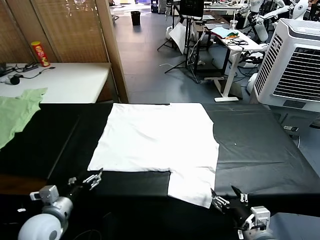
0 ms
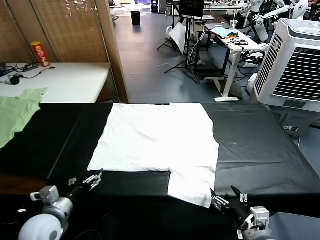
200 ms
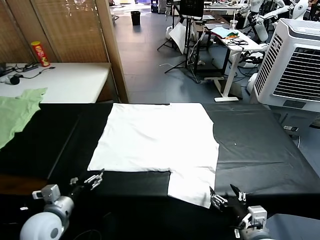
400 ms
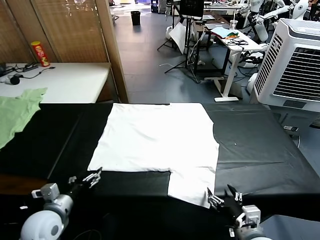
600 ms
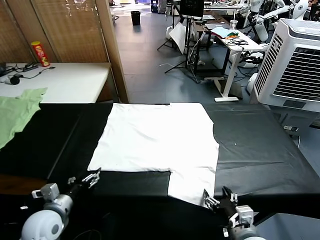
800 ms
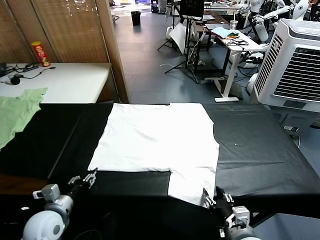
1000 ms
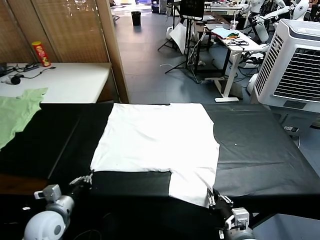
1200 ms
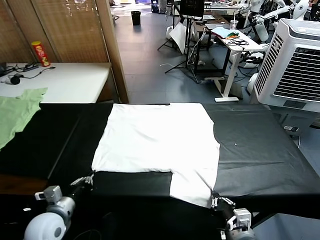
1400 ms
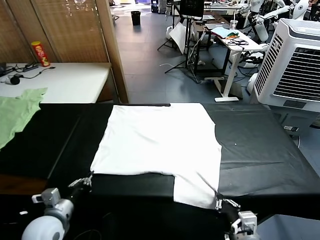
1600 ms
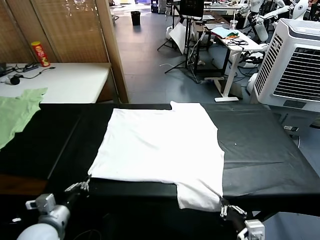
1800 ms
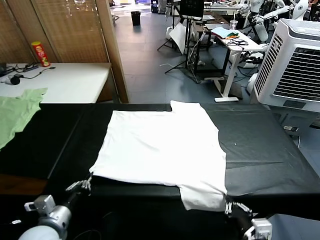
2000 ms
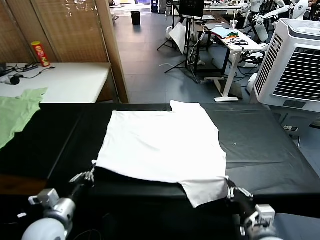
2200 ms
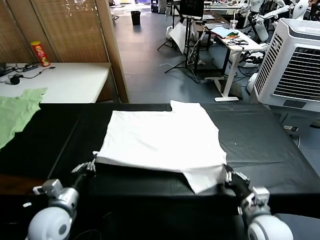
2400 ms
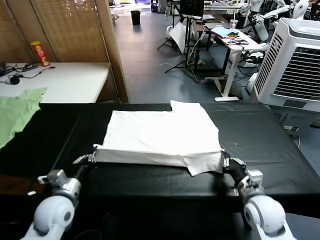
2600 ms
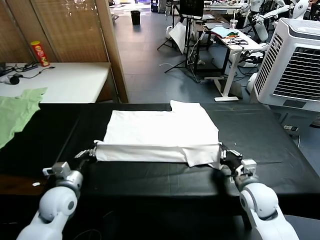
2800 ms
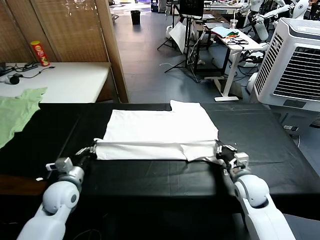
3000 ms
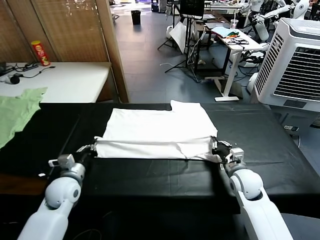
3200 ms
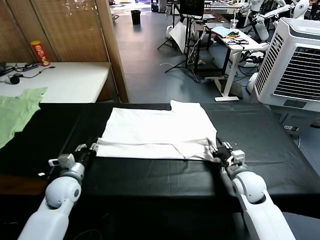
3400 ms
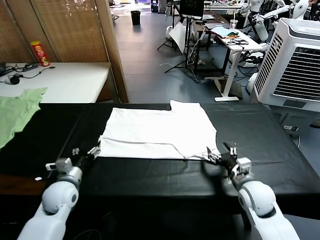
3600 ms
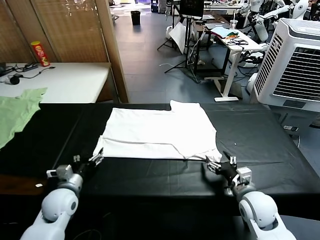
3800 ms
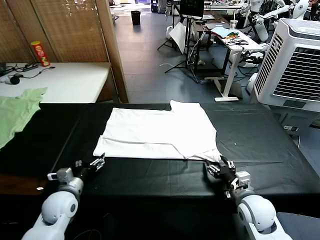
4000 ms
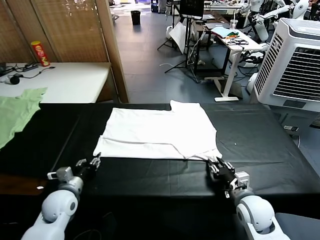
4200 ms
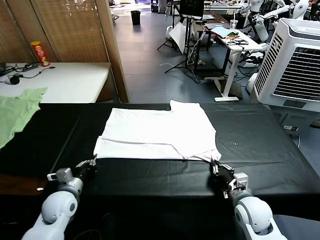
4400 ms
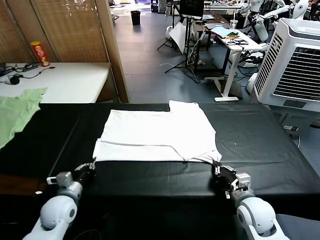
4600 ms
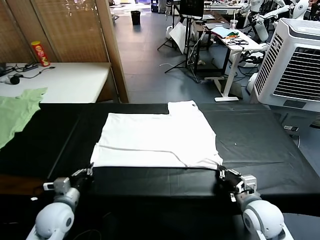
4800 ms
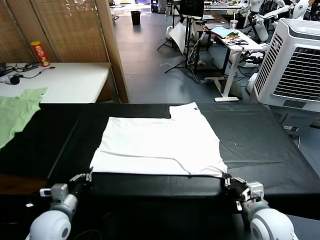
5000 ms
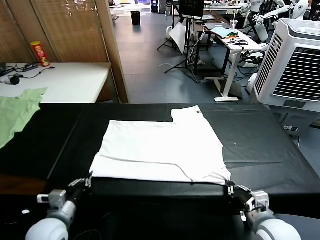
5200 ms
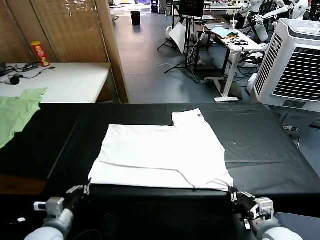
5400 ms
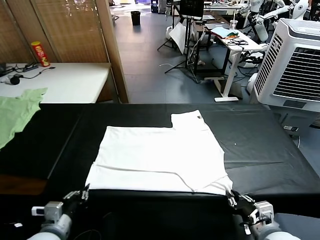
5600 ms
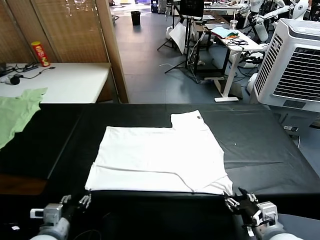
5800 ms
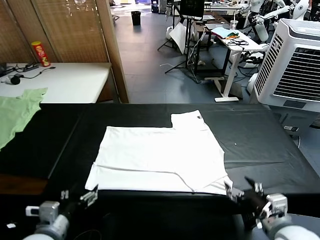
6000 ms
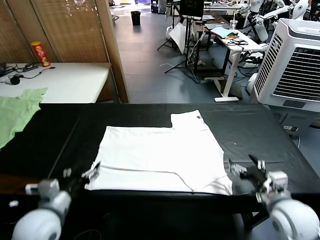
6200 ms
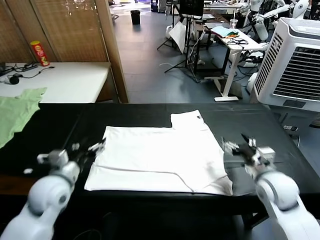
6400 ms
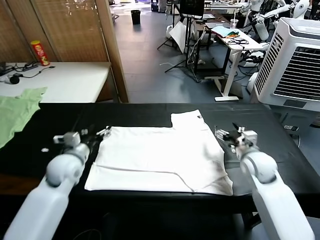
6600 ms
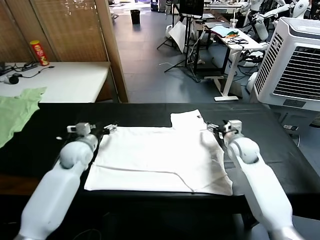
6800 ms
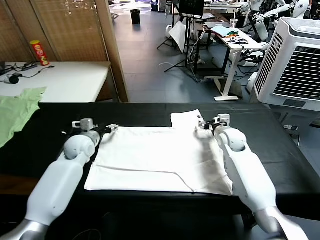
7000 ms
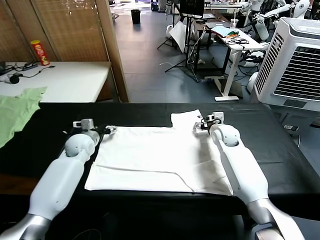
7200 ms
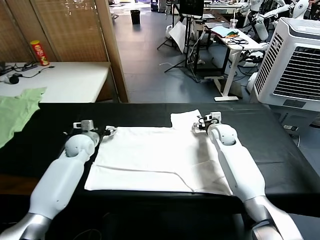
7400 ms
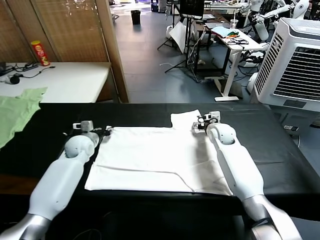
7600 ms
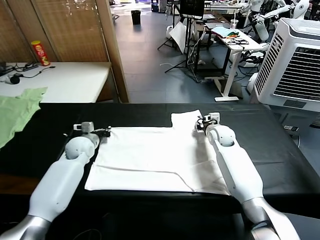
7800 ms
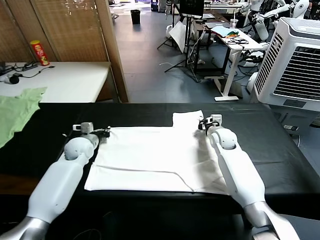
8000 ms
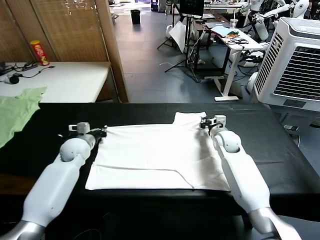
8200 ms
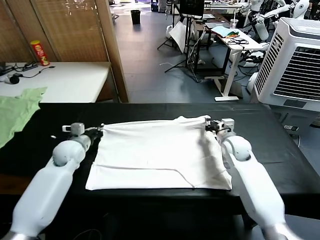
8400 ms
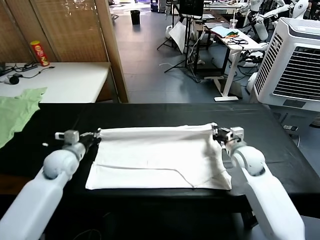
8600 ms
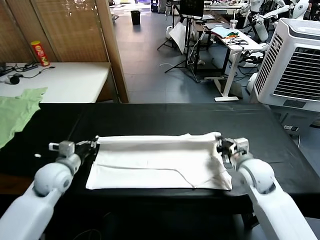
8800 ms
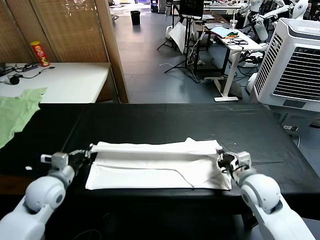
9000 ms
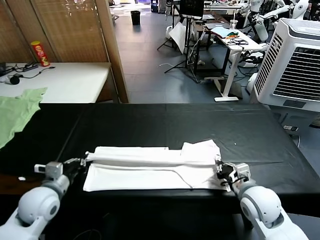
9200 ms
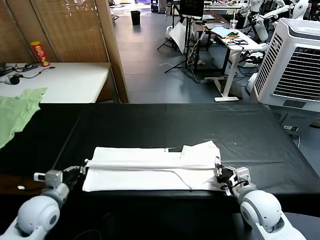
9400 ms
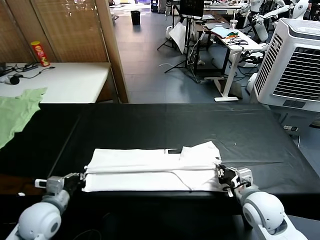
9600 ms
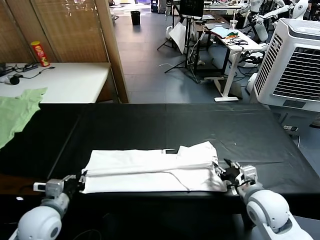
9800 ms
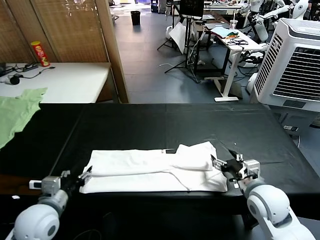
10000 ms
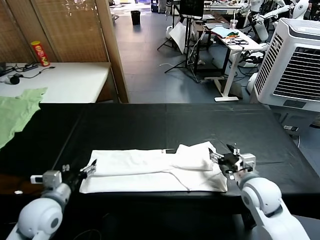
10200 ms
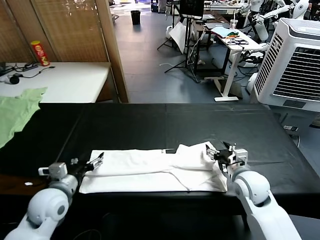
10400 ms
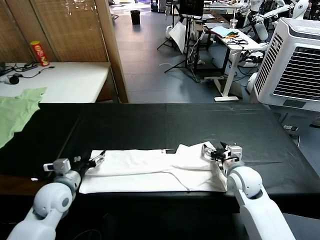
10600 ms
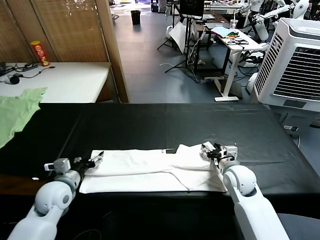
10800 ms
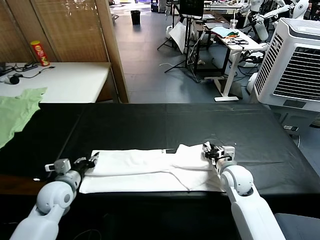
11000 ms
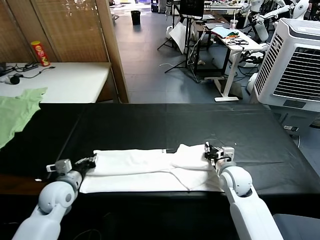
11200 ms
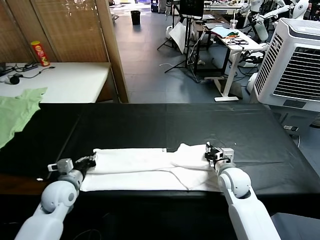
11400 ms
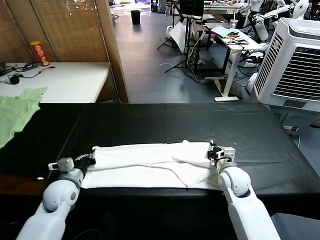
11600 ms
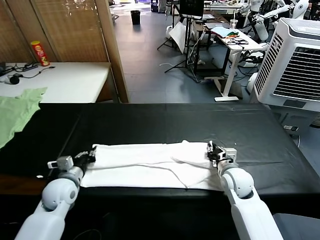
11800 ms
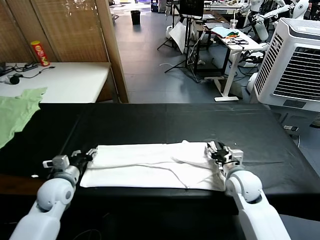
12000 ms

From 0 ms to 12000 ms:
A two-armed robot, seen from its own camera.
Task of the whole recording: fold and organize the clothes.
Step, from 0 ms to 1400 ms: use both grippers simultaneously to clamp the lower edge of the clothing fabric.
Step, from 1600 ms to 3400 ms: use both grippers to drag the lower edge of the fabric forward and fold it over the upper edge.
Step, from 3600 ms to 5800 ms: Drag the clothes downward with both gripper.
Step, from 6000 ms to 7800 ms: use both grippers simultaneously to clamp the upper edge of the clothing fabric.
Step, from 8000 ms to 9800 ms: use both grippers to drag the upper edge of the fabric backward and fold it over the lower edge.
From 1600 ms to 3000 ms: The right gripper goes some 25 cm forward. The left gripper heads forward, covering approximately 10 cm.
From 3000 ms to 4400 ms: The right gripper travels backward by some 10 cm, and opens, then closes once more. The left gripper opens and closes again.
From 4400 ms to 6000 ms: The left gripper is displaced backward and upward by some 15 cm, and opens up. Meanwhile the right gripper travels upward by roughly 10 cm, travels backward and back again, approximately 10 cm each way, and opens its fingers.
From 6000 ms to 7600 ms: The grippers both shift forward by some 30 cm. The right gripper closes up, while the left gripper closes up.
From 7600 ms to 9000 ms: Both grippers travel together backward, about 25 cm. The right gripper closes up. The left gripper closes up.
From 9000 ms to 10400 ms: The right gripper moves forward, some 5 cm, and opens its fingers. Meanwhile the left gripper opens its fingers.
From 10400 ms to 12000 ms: The right gripper closes, then reopens. Meanwhile the left gripper moves roughly 5 cm, and closes, then opens again.

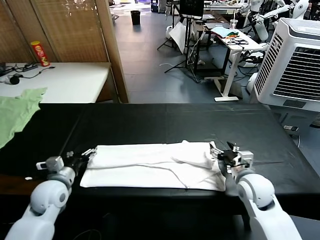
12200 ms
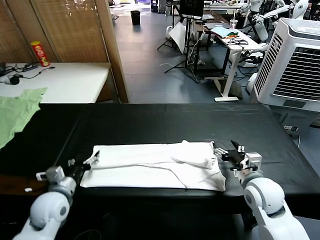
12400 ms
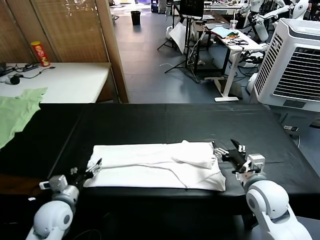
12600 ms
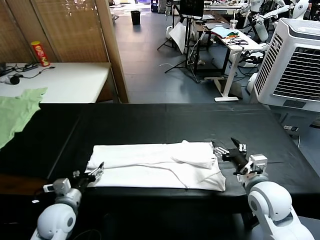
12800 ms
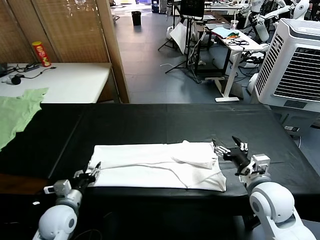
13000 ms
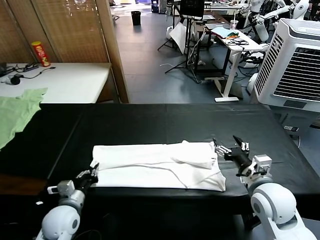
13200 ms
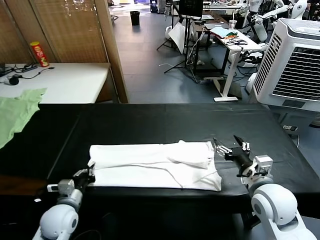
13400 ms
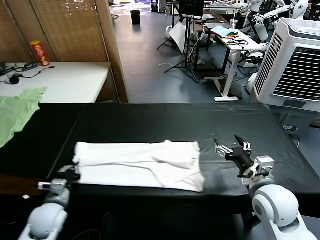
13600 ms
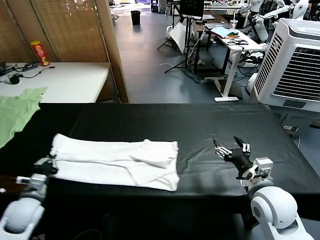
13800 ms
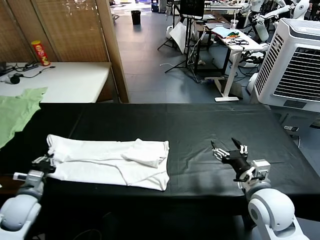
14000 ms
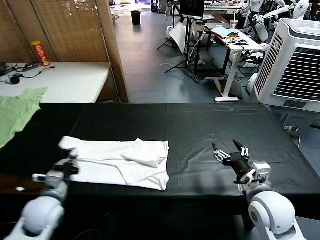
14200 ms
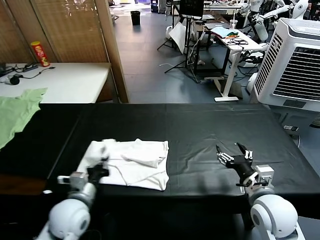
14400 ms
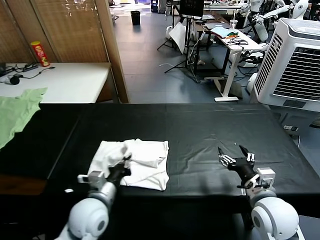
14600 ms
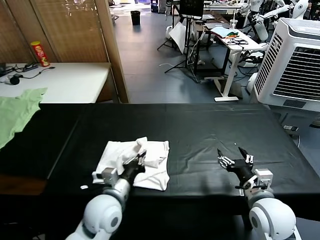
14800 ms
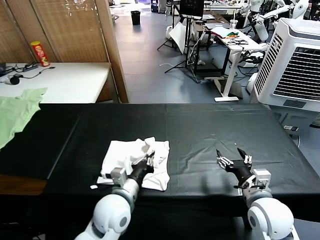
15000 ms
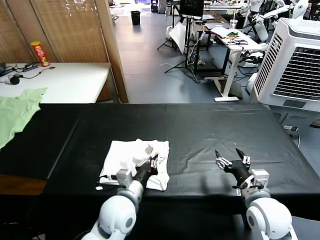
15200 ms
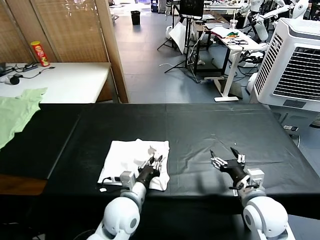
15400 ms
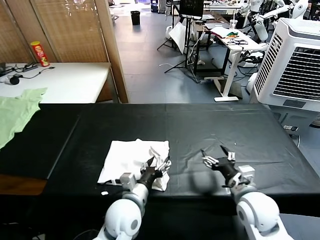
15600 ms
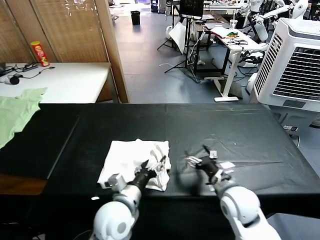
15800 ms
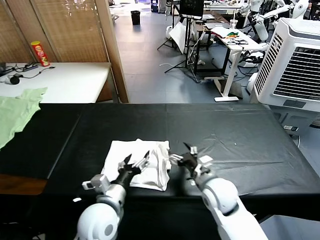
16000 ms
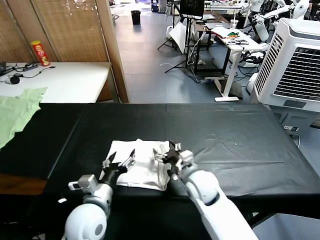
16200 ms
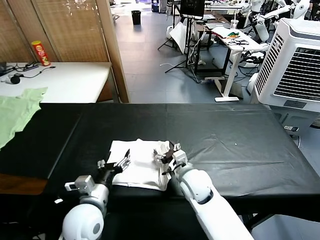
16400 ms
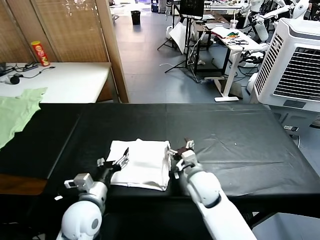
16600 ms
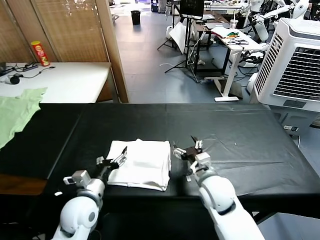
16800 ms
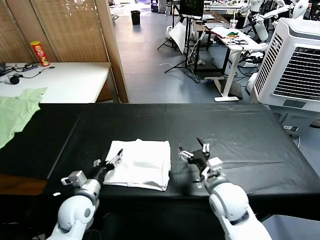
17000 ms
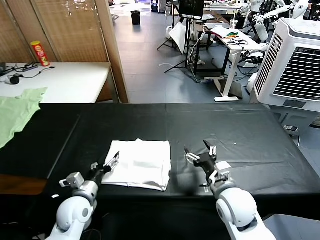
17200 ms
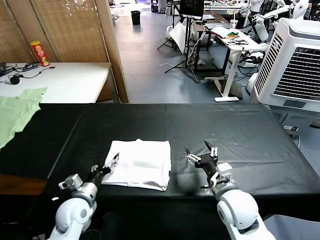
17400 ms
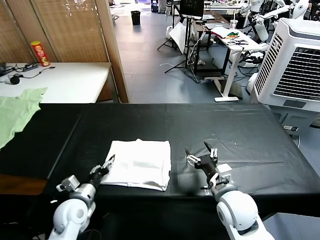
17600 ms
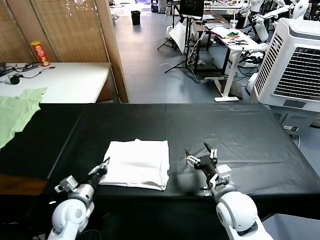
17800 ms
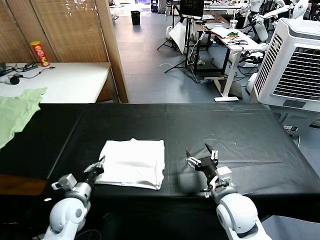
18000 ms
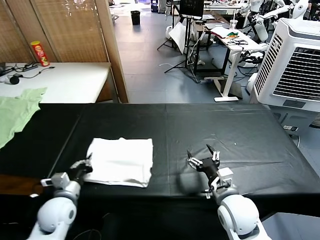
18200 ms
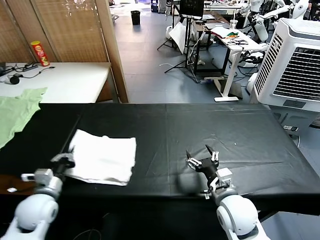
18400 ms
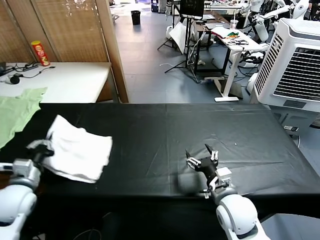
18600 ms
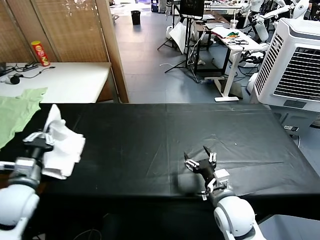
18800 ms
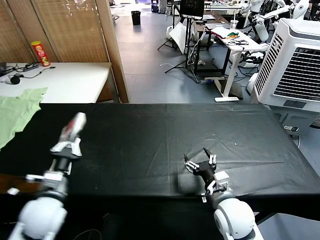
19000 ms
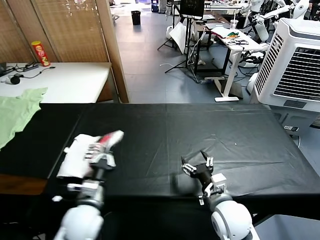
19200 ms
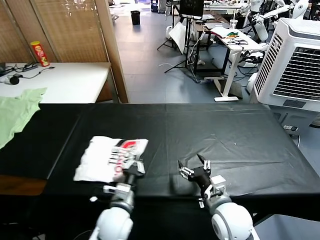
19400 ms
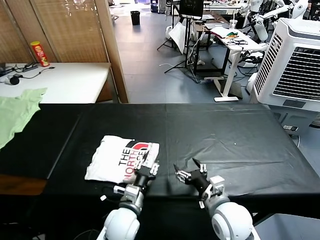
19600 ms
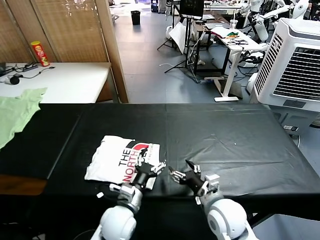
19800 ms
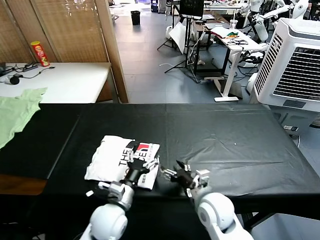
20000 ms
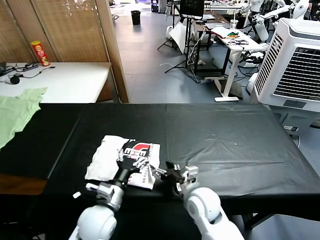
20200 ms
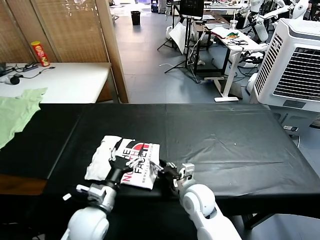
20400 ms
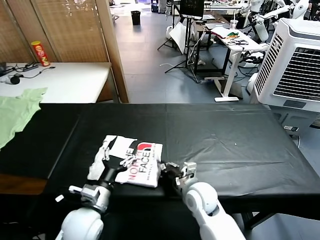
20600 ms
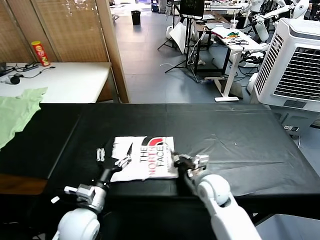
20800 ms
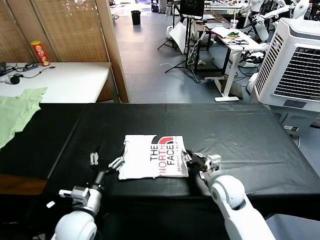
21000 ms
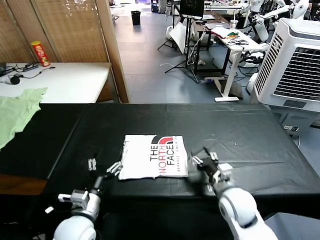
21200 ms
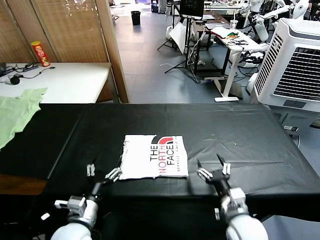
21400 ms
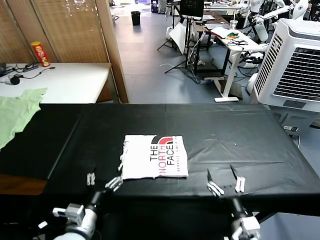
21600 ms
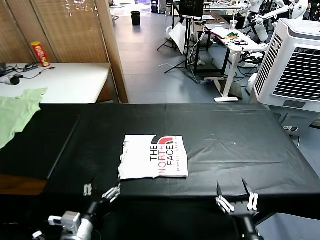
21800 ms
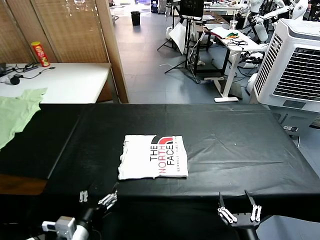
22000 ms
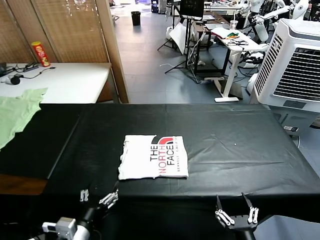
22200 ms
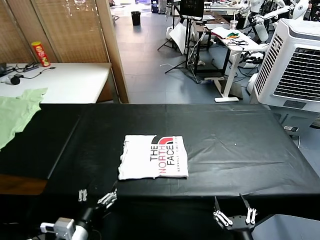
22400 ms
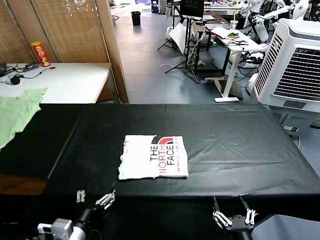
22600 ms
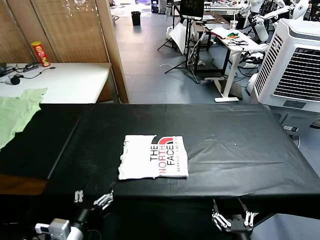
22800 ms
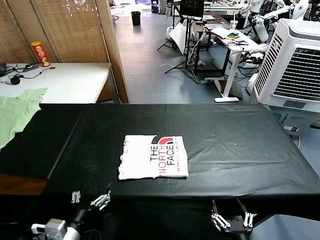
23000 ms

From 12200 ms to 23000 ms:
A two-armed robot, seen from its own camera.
Task of the whole recording: fold and organize the clothes.
Step, from 13400 ms to 15600 ms: use the left gripper to drag the left edge of the fabric to the left and folds it over the right edge.
Step, from 15800 ms to 19600 ms: Flip the folded clothes over with left gripper.
Step, from 19800 ms to 21000 ms: Drag the clothes to the center of the table.
From 12200 ms to 13800 ms: The right gripper shifts approximately 5 cm backward, while the left gripper heads to the left, covering approximately 10 cm, and closes its fingers.
From 13800 ms to 15200 ms: The left gripper heads to the right, covering approximately 30 cm.
From 15200 ms to 16800 ms: The left gripper is displaced to the left by roughly 10 cm, and opens up; the right gripper moves to the left and forward, about 15 cm.
From 16800 ms to 18400 ms: The right gripper is displaced backward by some 5 cm. Meanwhile the left gripper moves to the left, approximately 10 cm, and closes.
From 18400 ms to 20000 ms: The left gripper travels to the right by some 20 cm, and opens its fingers. The right gripper shifts by about 5 cm.
From 20000 ms to 21400 ms: The right gripper shifts about 5 cm to the right, and closes and opens again. Meanwhile the left gripper goes some 10 cm to the left and backward.
From 21400 ms to 23000 ms: The right gripper shifts some 15 cm backward. Meanwhile the left gripper is displaced backward by some 10 cm.
